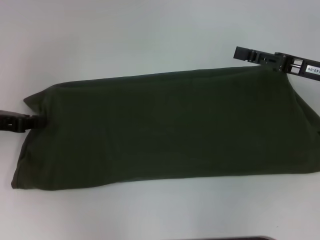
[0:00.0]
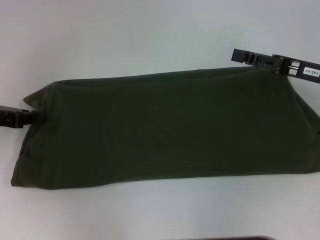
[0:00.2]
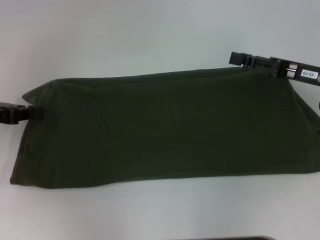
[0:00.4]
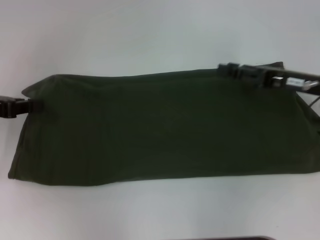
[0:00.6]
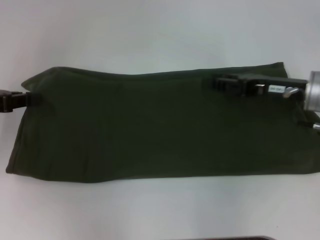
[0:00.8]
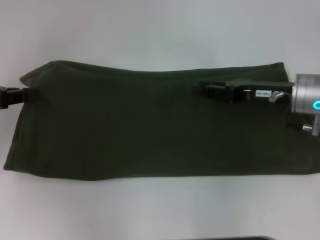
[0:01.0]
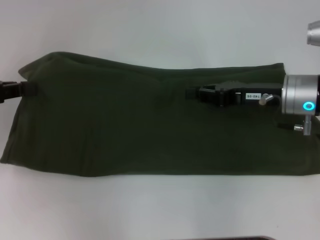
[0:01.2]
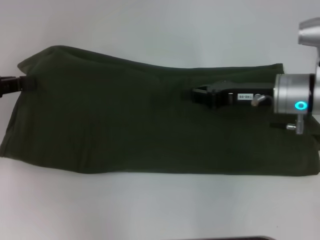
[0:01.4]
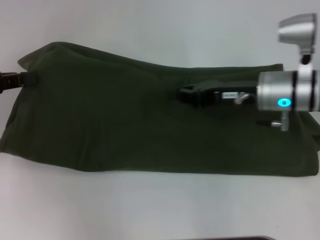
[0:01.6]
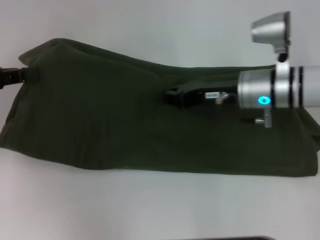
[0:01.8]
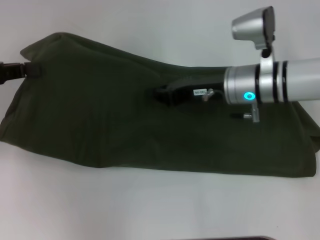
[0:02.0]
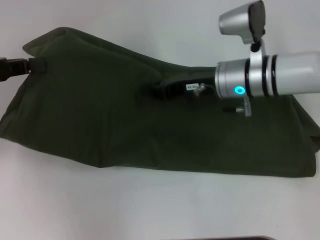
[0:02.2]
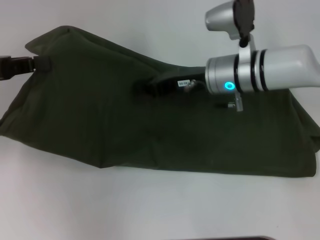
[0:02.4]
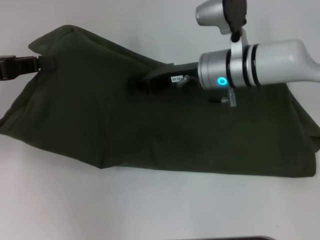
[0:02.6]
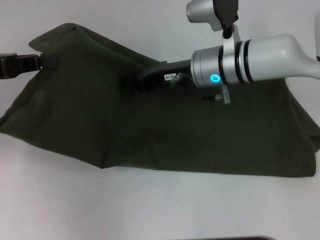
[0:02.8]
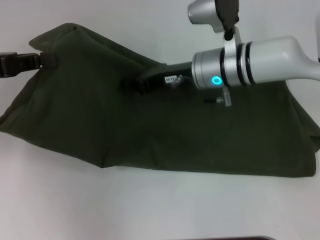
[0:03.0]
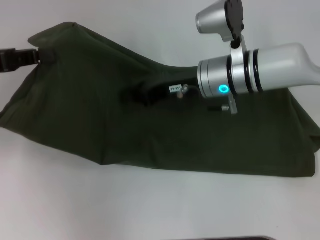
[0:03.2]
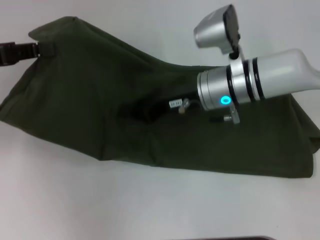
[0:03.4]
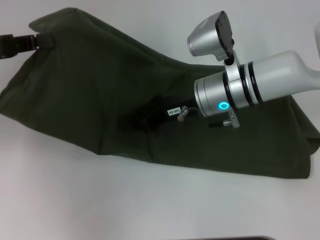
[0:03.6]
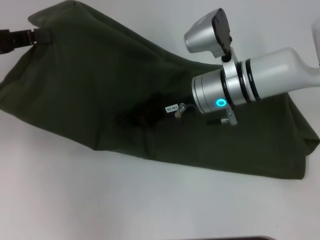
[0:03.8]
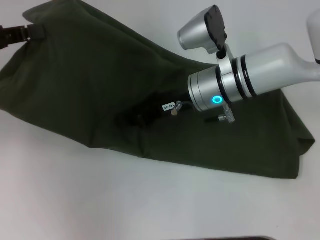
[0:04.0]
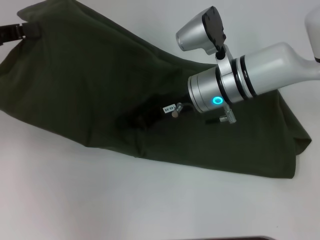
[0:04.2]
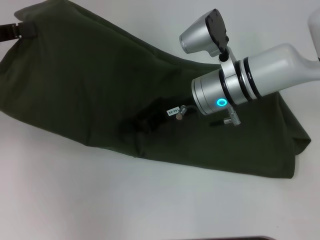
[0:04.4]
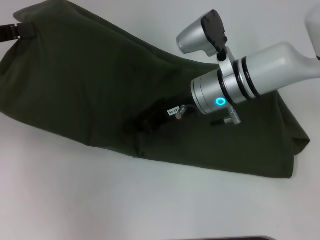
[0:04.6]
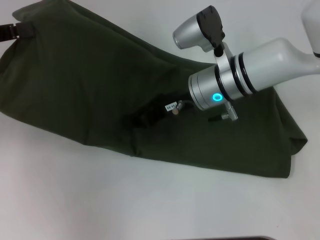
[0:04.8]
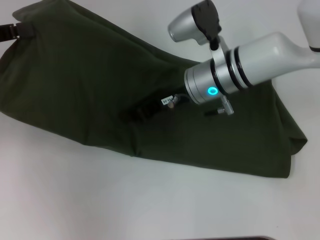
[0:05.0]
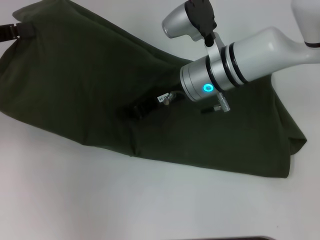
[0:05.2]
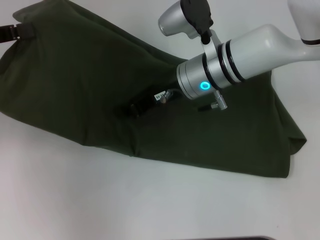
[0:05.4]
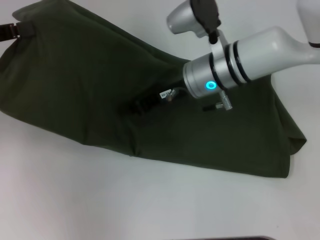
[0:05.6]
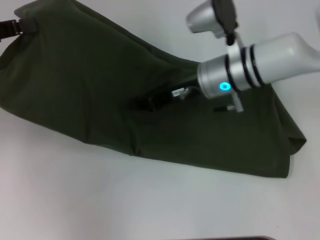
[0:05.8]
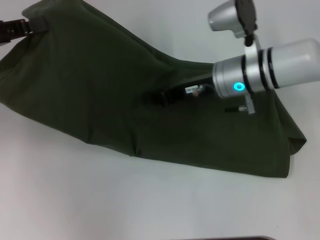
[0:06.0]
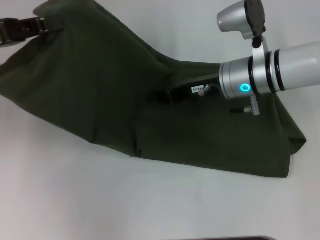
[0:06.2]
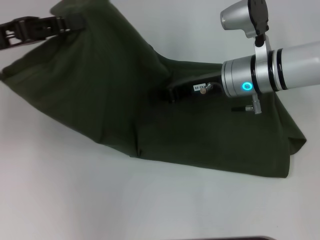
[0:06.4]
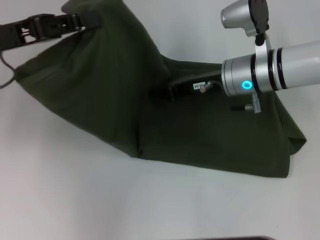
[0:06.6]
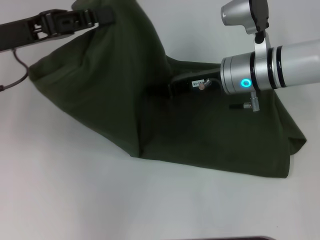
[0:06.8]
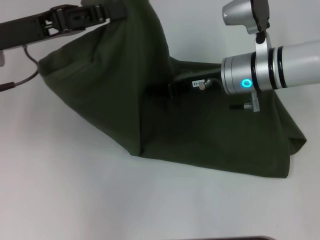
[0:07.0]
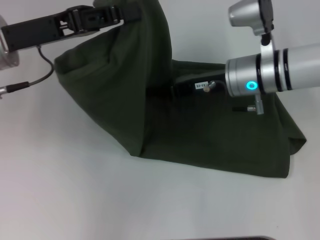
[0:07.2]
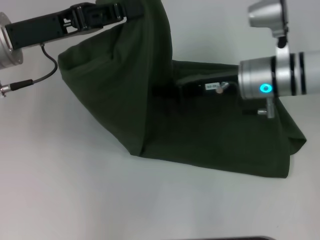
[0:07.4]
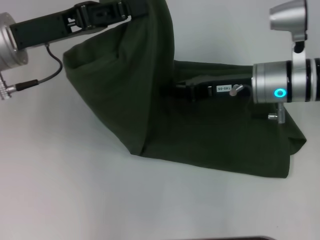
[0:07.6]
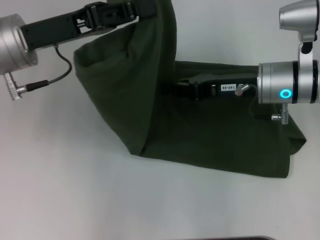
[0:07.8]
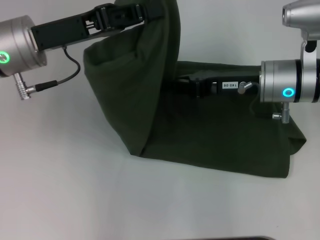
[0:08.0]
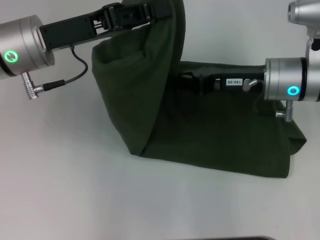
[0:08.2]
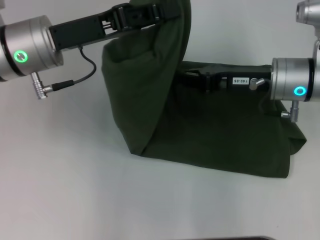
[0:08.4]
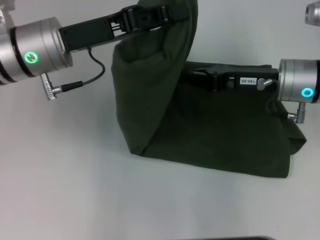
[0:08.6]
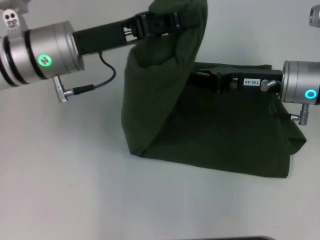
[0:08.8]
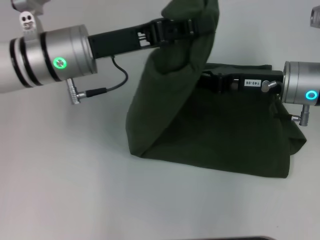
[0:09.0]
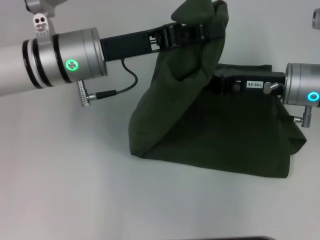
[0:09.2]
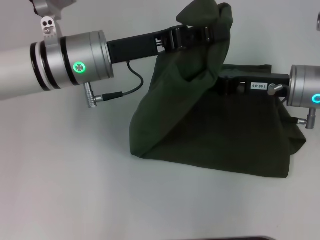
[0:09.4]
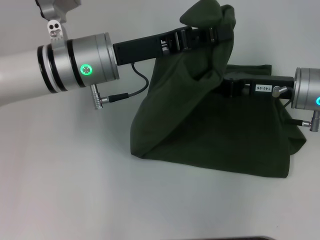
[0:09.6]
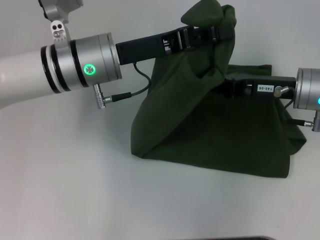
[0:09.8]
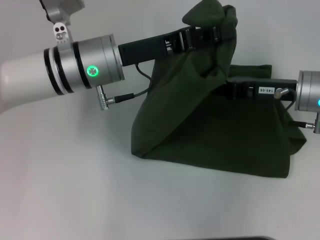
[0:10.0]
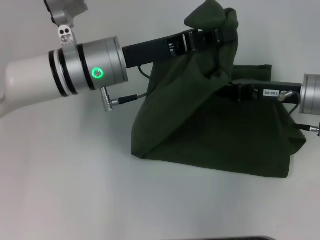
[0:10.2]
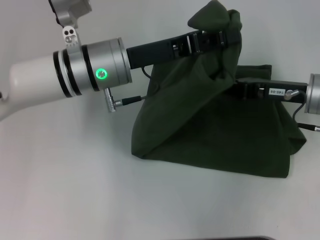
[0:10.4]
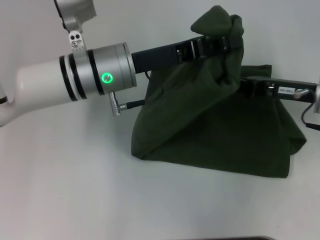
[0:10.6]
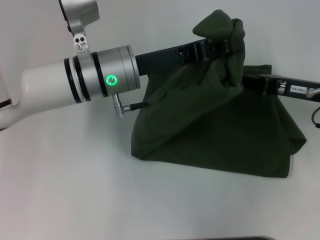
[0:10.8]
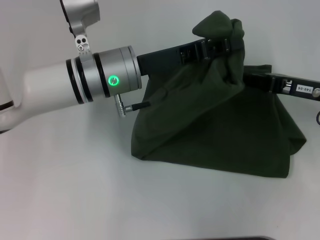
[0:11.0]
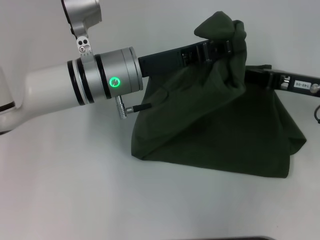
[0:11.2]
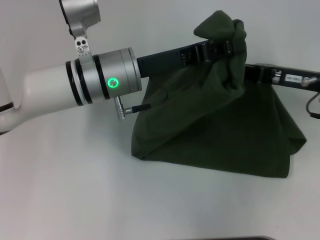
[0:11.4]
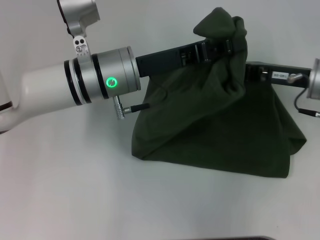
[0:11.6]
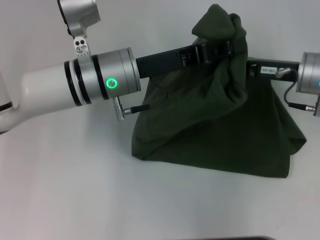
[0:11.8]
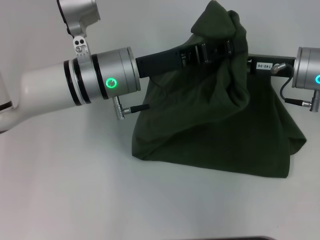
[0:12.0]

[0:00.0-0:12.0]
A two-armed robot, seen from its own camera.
0:00.0 to 0:01.6: The right gripper heads to the left, covering approximately 10 cm, and closes up. The left gripper travels upward by approximately 5 cm.
0:01.6 to 0:03.0: The right gripper moves to the left, roughly 10 cm.
0:04.4 to 0:06.0: The grippers stay close to where they were, moving slightly.
0:06.0 to 0:07.6: The right gripper moves roughly 5 cm. Meanwhile the left gripper goes roughly 10 cm to the right.
0:07.6 to 0:09.0: The left gripper shifts some 5 cm to the right.
0:10.4 to 0:12.0: The grippers stay close to where they were, moving slightly.

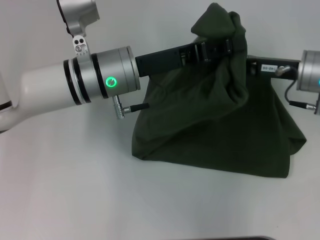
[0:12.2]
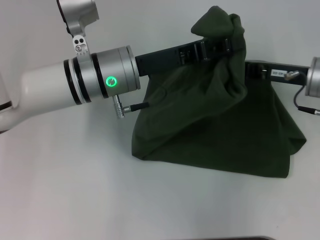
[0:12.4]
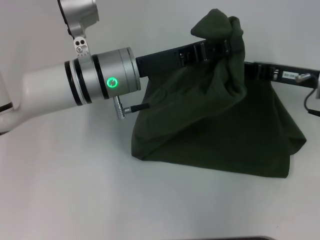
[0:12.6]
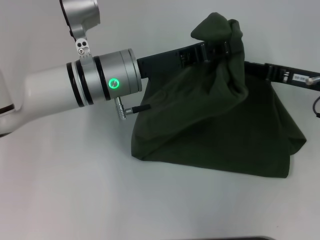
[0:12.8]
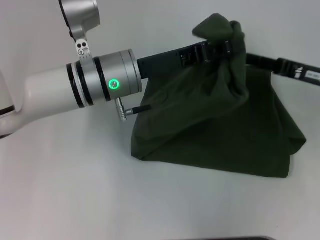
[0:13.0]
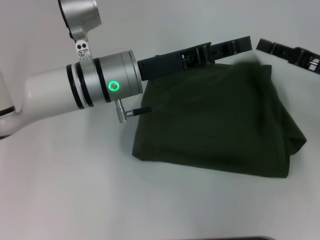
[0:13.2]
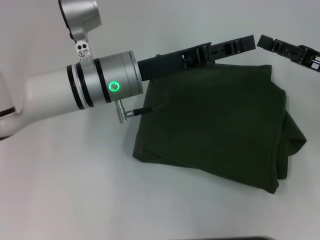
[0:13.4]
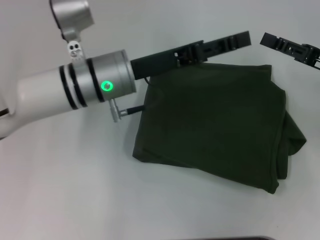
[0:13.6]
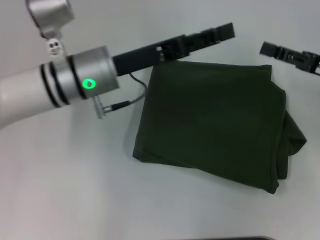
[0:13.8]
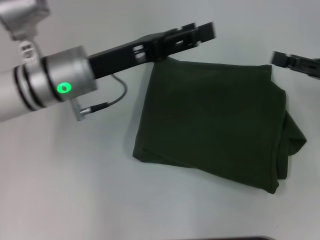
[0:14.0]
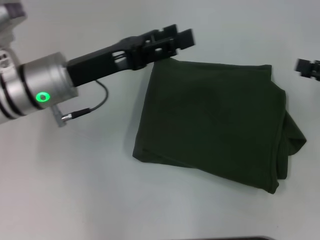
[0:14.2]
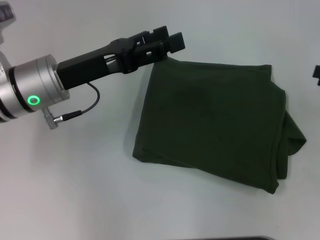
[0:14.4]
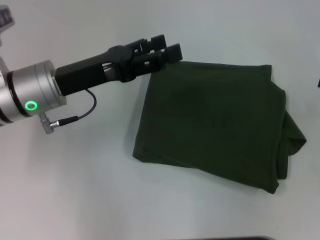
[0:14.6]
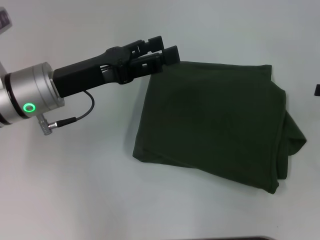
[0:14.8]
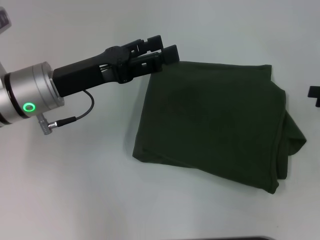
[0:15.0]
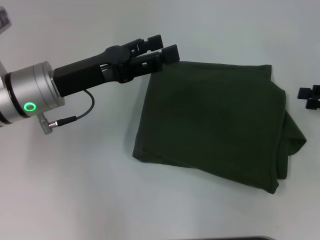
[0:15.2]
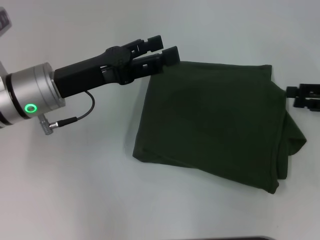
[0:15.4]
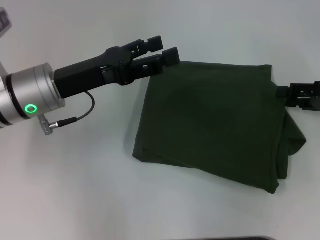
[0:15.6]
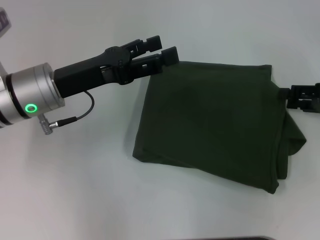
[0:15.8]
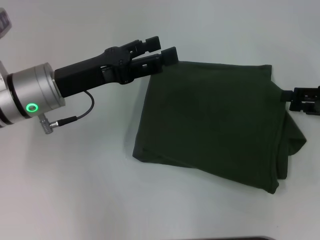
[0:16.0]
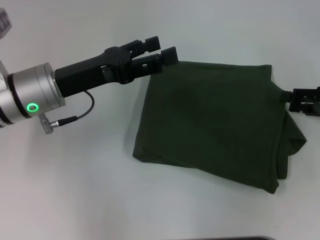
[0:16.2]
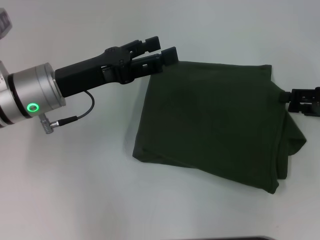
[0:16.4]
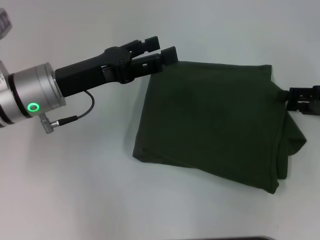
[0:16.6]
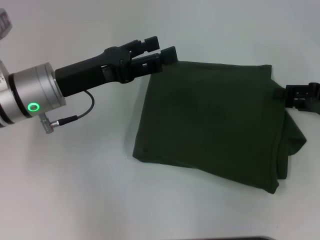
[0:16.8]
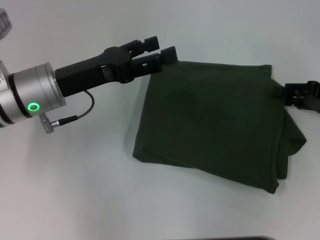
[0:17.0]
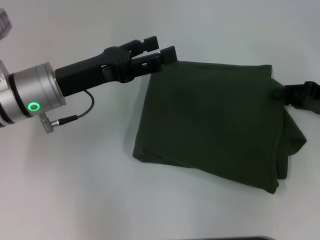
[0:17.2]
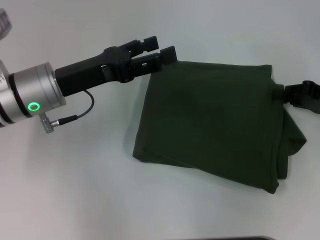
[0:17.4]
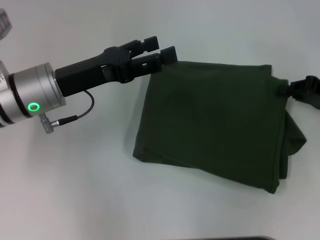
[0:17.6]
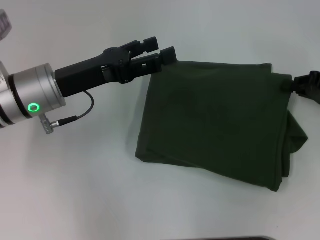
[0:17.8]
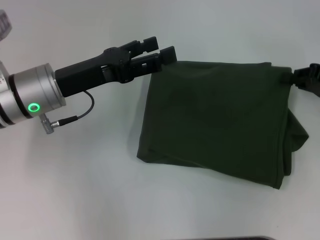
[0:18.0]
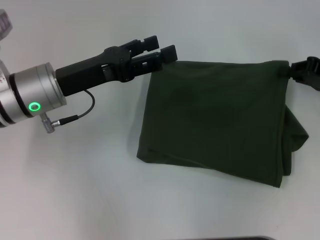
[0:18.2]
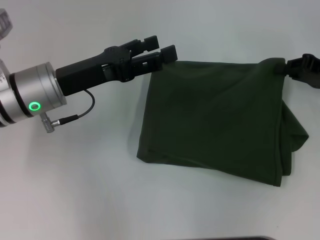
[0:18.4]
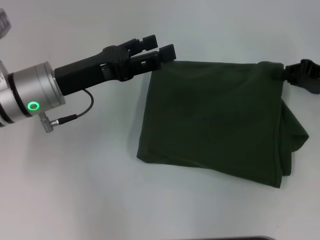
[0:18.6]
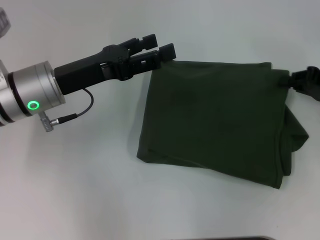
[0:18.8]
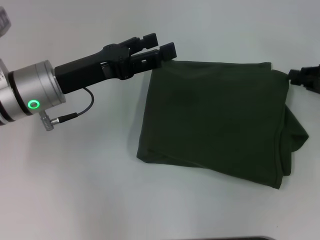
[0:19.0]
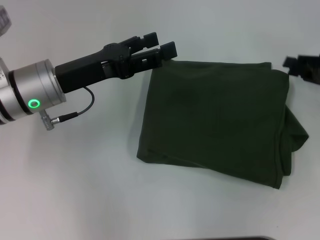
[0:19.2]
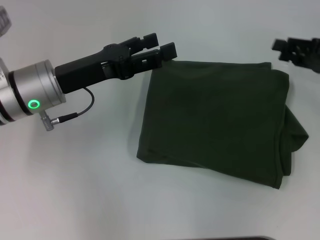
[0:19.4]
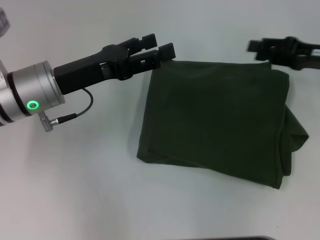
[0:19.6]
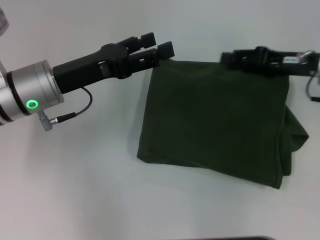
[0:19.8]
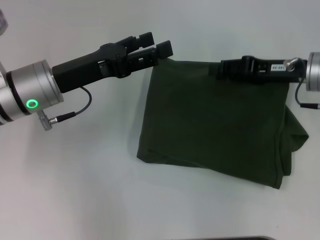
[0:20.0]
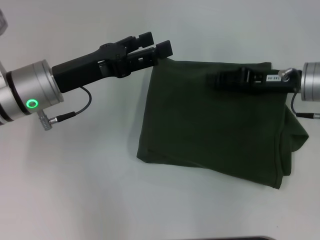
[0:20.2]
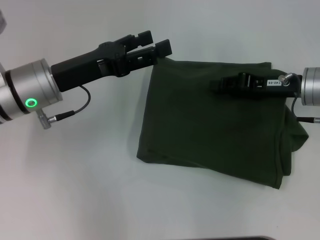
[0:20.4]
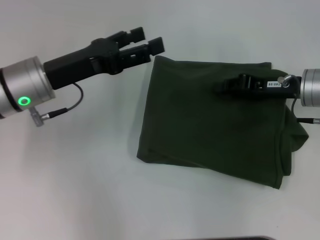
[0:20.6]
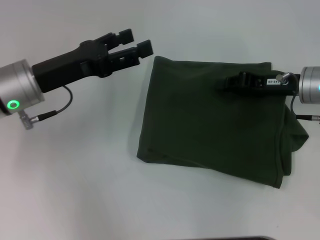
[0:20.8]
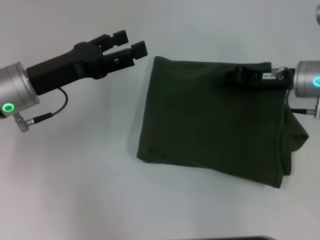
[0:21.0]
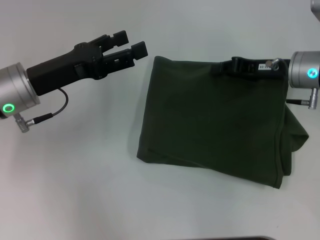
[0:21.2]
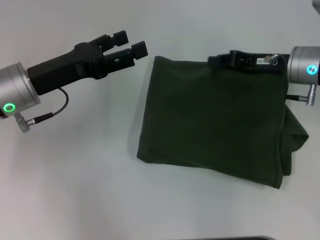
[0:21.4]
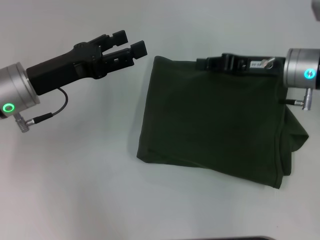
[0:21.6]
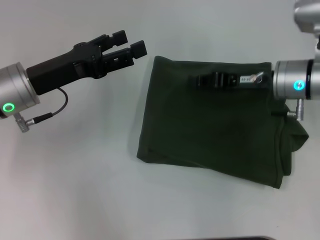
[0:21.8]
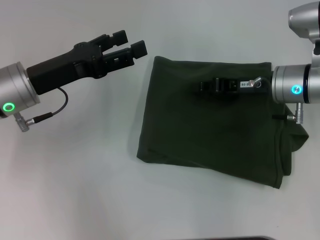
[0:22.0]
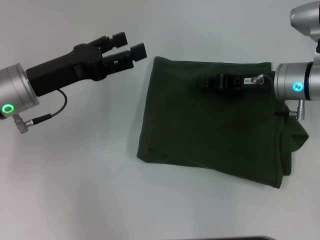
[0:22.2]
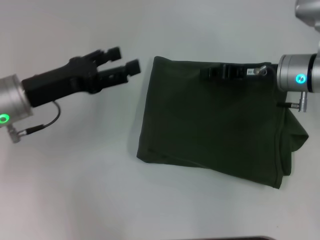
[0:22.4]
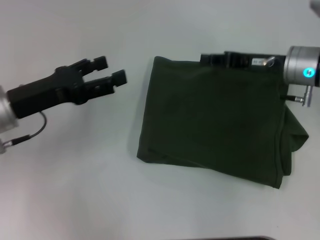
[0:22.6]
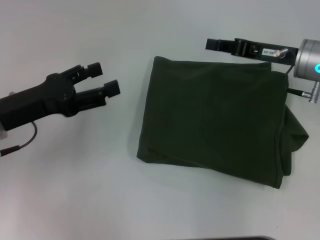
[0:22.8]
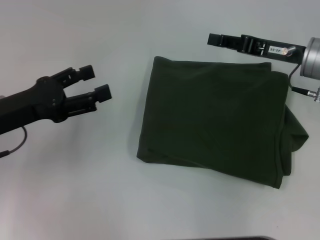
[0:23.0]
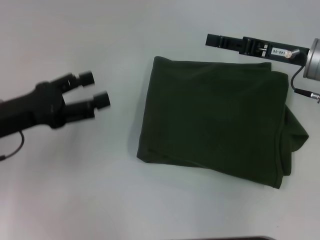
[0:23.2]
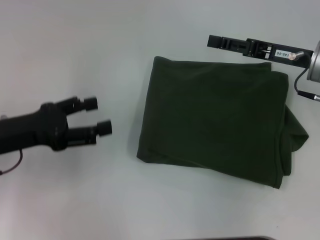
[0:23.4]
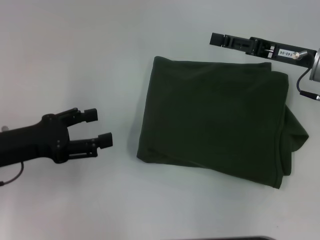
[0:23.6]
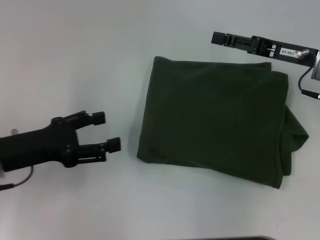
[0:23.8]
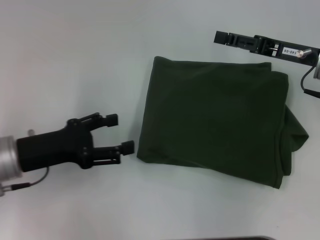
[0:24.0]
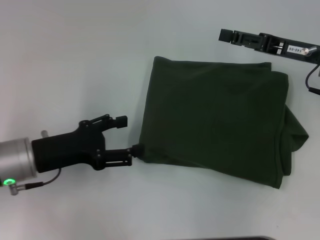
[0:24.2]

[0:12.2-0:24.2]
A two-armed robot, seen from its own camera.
0:12.2 to 0:13.8: The left gripper opens. The right gripper is displaced to the right by approximately 10 cm, and opens.
0:13.8 to 0:15.2: The right gripper heads to the right, covering approximately 5 cm, while the left gripper travels to the left by approximately 5 cm.
0:15.2 to 0:16.6: The grippers move only a little.
0:16.6 to 0:18.2: The right gripper closes up.
0:18.2 to 0:19.8: The right gripper travels to the left by some 5 cm, and opens its fingers.
0:19.8 to 0:21.2: The right gripper closes its fingers.
0:21.2 to 0:22.6: The grippers stay close to where they were, moving slightly.
0:22.6 to 0:24.2: The right gripper opens its fingers. The left gripper changes place by roughly 5 cm.
